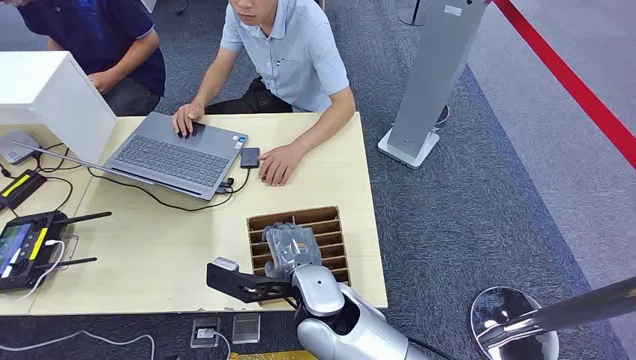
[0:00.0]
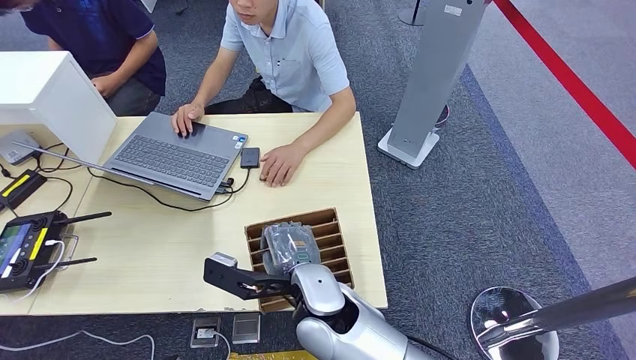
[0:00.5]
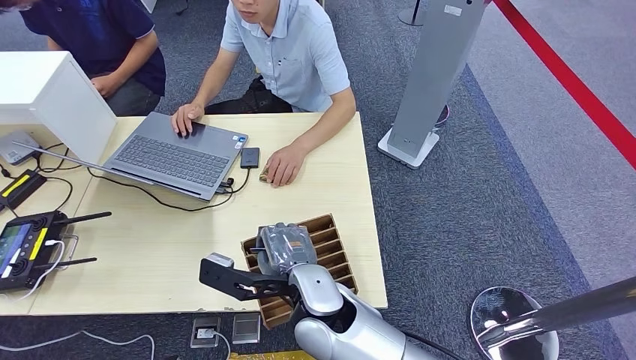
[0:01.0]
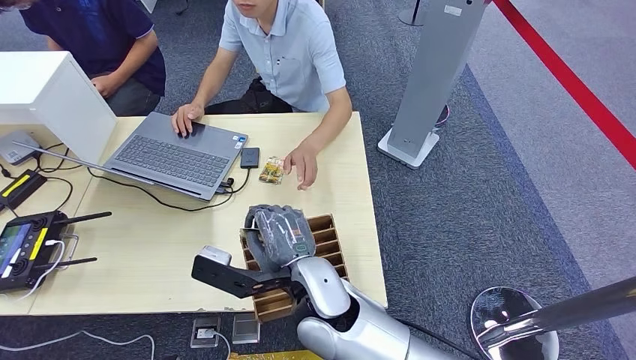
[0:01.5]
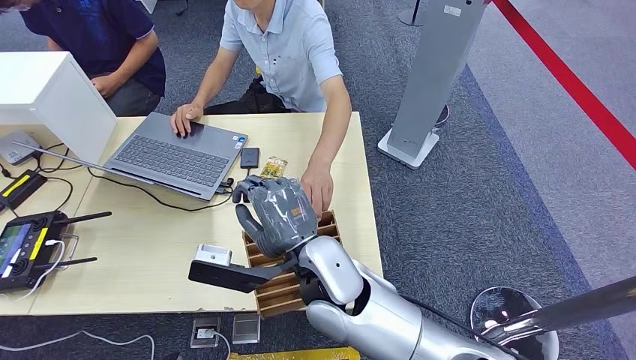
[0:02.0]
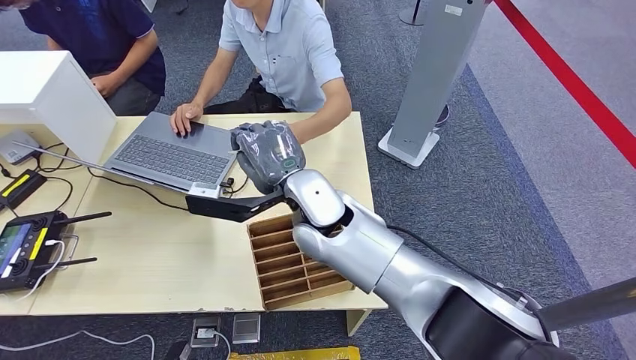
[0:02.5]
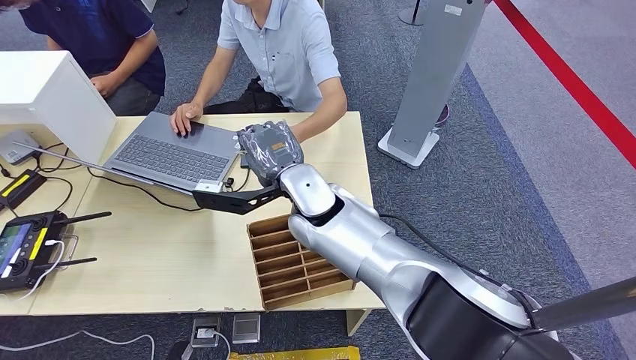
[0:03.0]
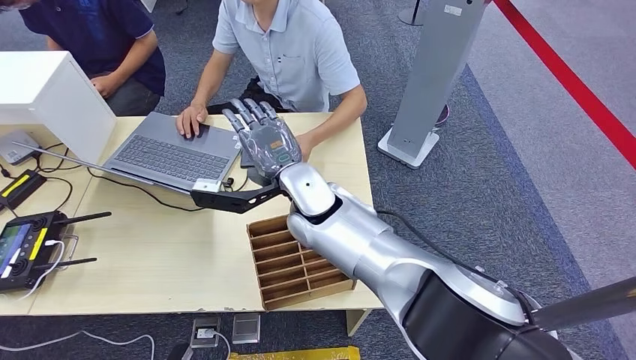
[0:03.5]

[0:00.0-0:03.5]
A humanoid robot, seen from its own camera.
Step, 0:00.0 to 0:01.5: Pick up the room card from the card holder.
Step, 0:02.5 to 0:03.5: Hand the room card to the target.
0:02.0 to 0:03.5: The right hand travels forward by some 10 cm.
